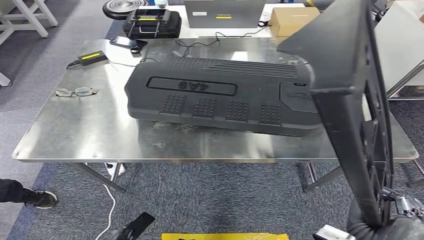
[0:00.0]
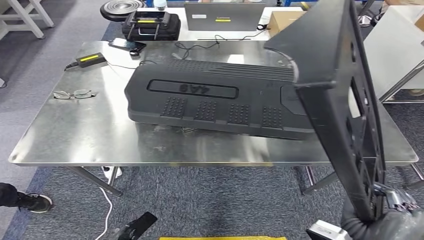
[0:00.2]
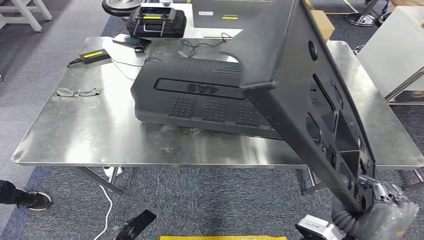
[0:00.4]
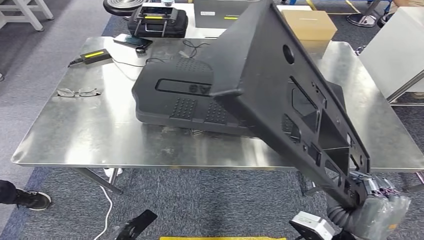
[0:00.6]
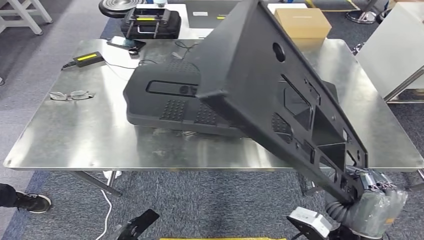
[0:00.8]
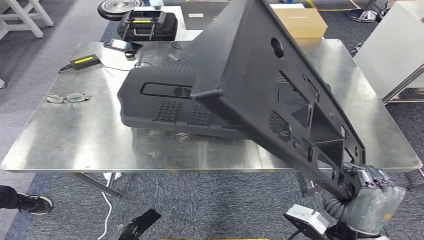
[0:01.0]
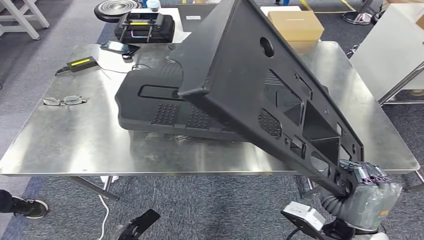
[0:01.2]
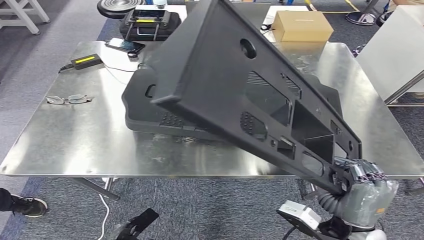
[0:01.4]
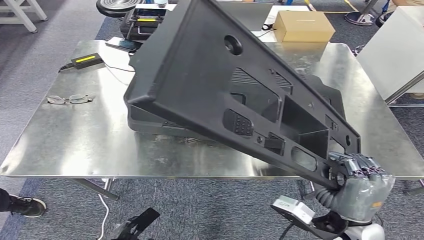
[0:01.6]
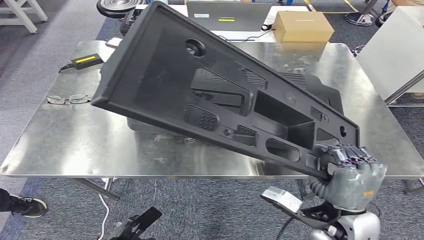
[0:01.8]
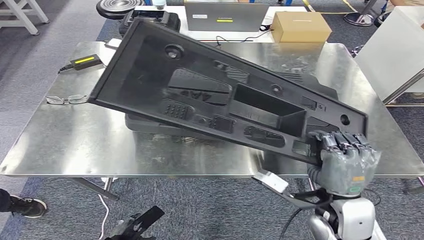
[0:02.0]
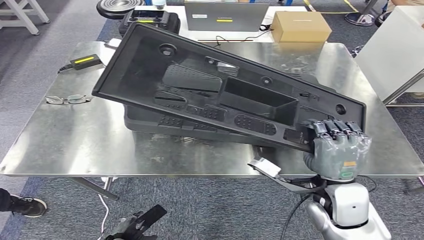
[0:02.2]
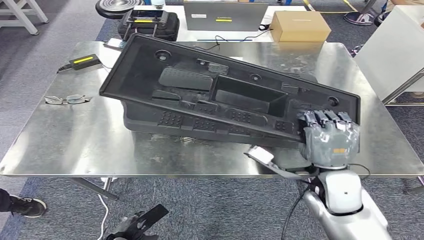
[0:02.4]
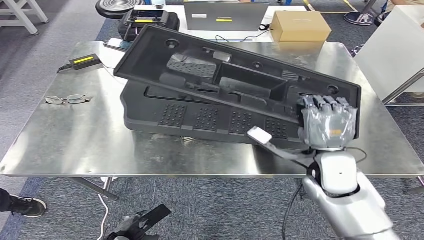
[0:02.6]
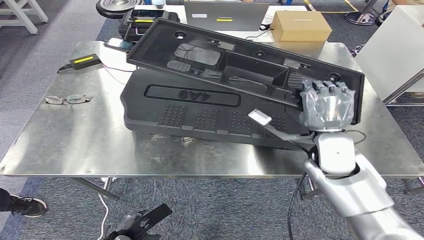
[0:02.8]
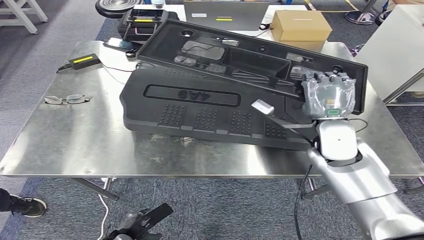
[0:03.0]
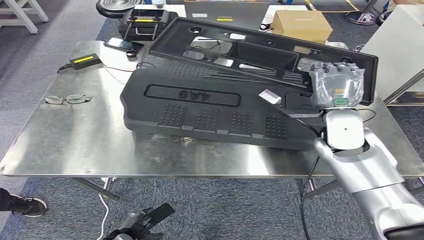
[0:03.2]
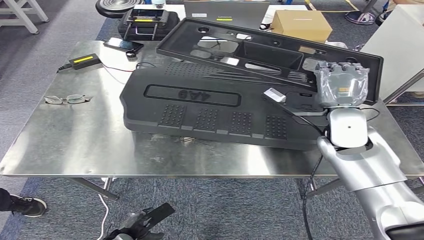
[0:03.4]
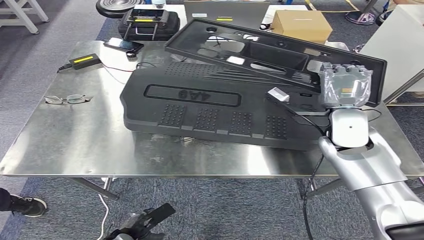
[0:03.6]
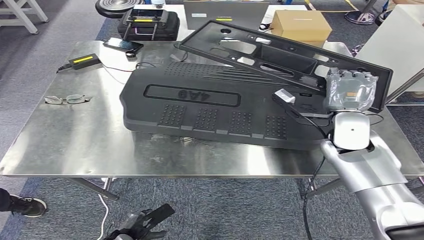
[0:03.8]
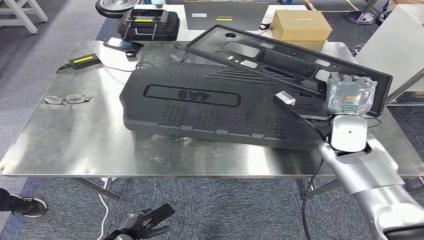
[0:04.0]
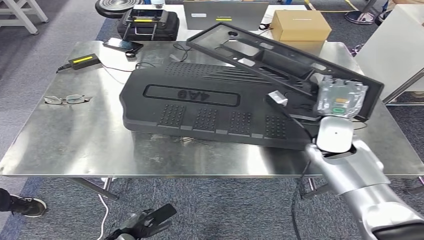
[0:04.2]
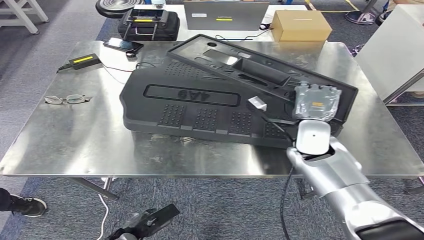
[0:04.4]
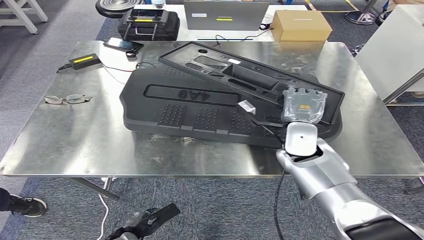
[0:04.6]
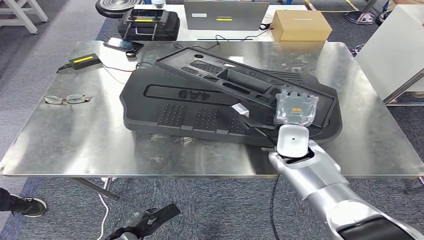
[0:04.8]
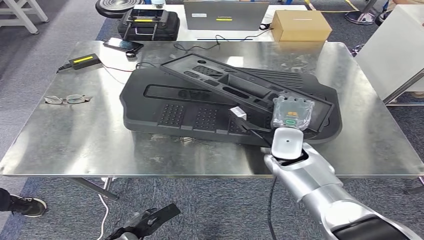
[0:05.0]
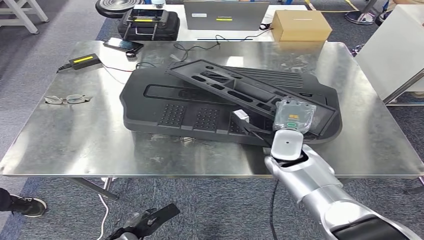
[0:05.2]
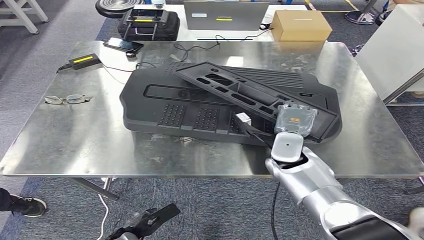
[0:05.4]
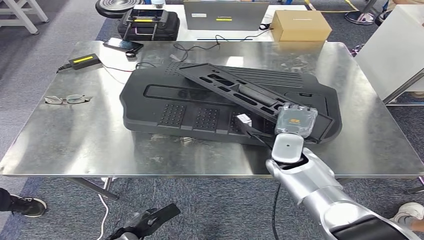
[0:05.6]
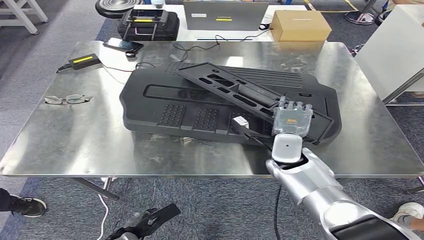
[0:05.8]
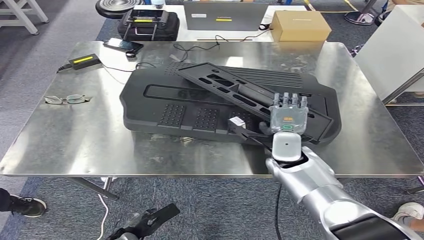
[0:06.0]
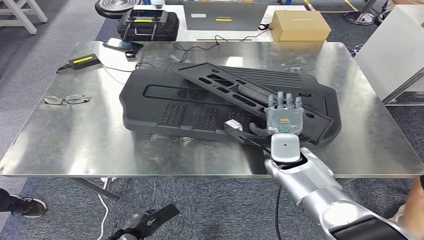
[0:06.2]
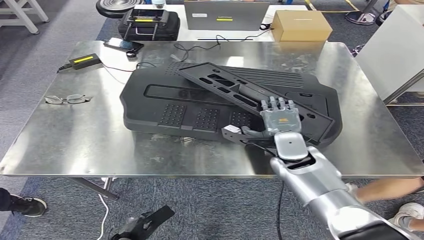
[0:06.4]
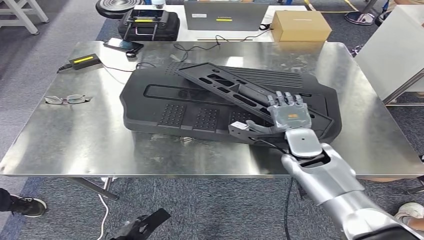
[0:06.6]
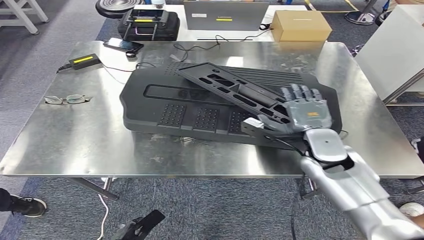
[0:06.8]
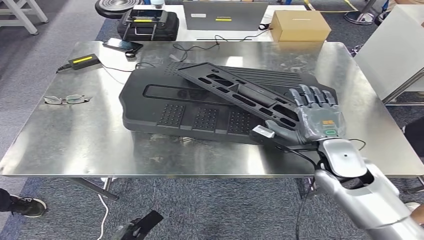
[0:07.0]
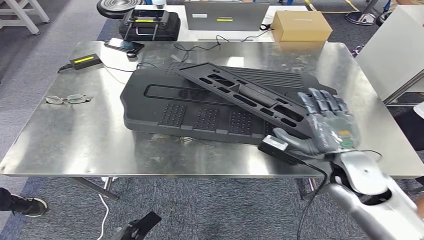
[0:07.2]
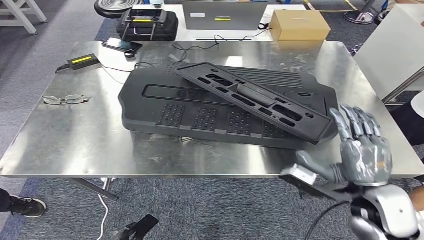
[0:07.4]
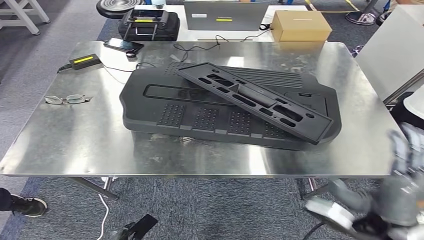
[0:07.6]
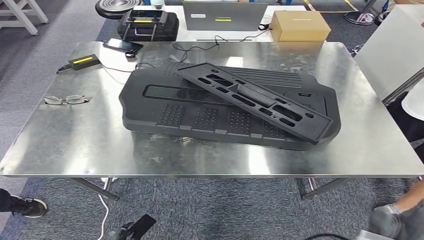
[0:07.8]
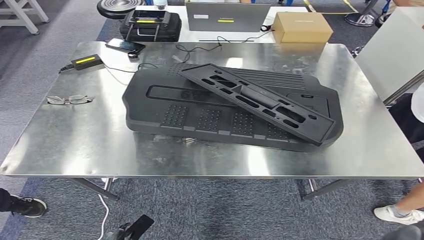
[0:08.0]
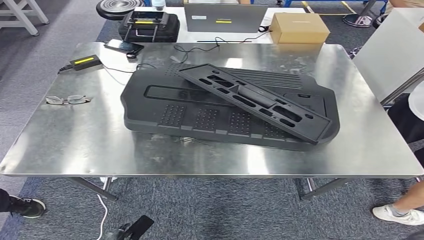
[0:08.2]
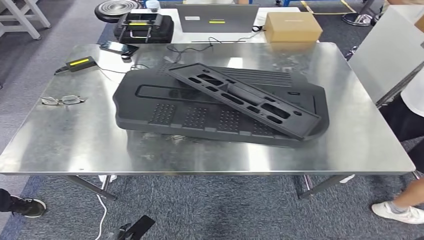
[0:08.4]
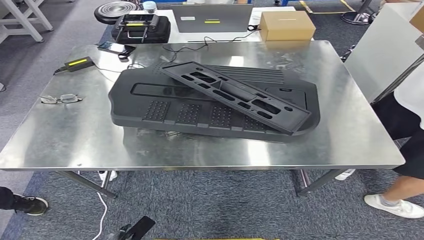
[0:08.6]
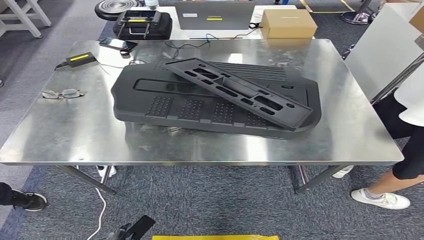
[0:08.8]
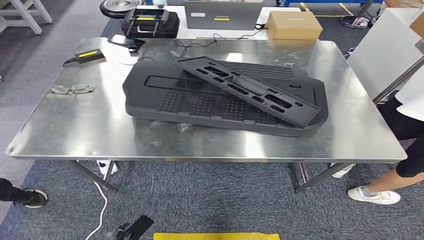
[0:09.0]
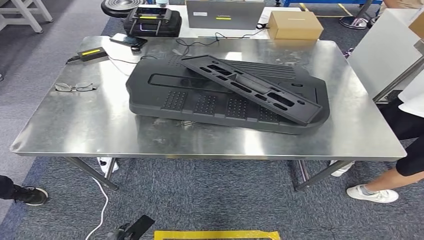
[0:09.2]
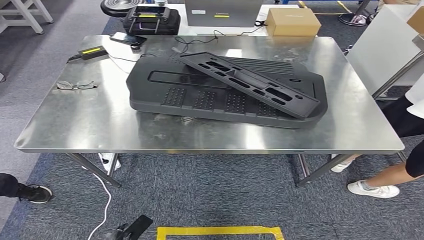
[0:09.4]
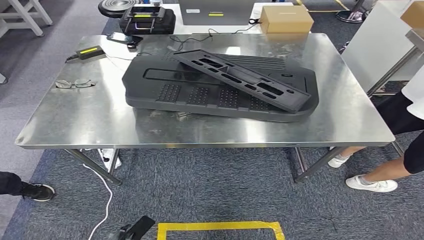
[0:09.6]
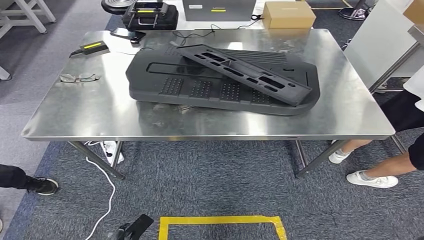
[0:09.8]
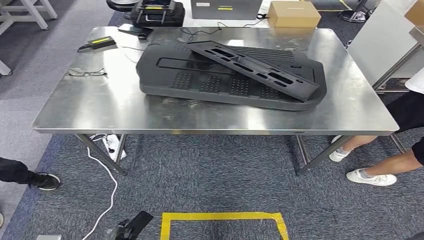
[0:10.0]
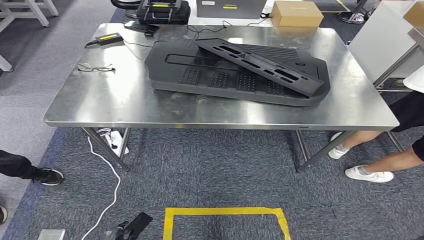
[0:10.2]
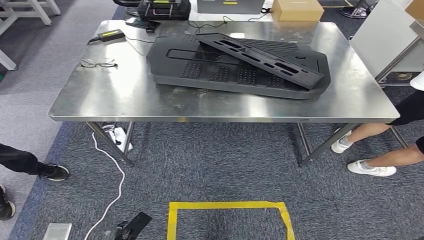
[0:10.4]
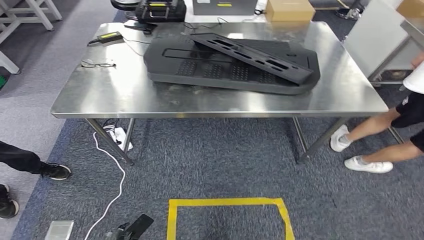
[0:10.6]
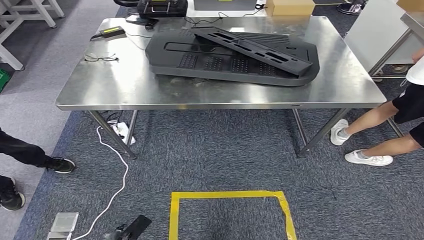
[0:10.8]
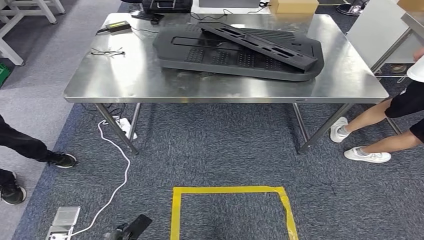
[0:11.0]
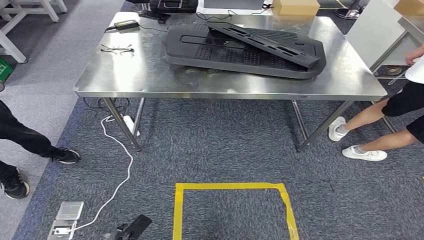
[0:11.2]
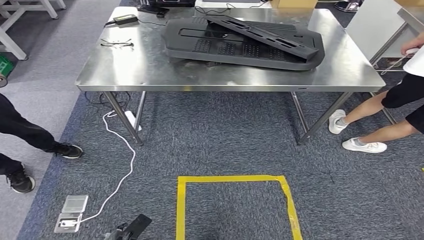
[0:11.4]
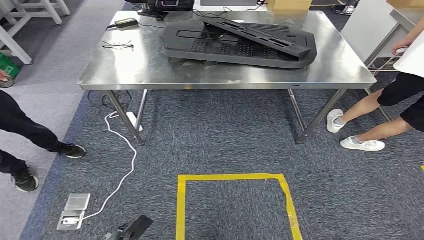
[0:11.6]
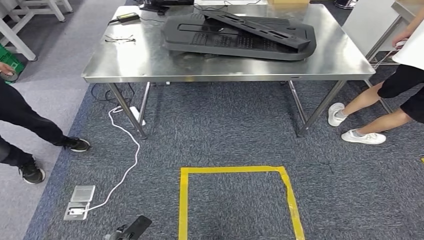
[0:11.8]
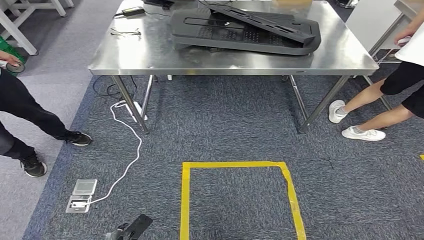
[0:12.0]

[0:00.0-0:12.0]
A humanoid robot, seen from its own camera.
Step, 0:01.4 to 0:07.4: Insert the large material into the corresponding slot on the workbench.
0:06.0 to 0:07.6: The right hand moves backward and to the right, roughly 25 cm; the left hand is displaced backward by about 5 cm.

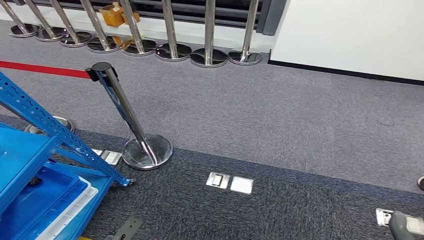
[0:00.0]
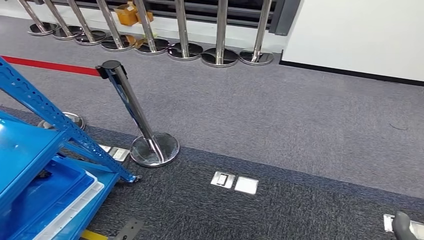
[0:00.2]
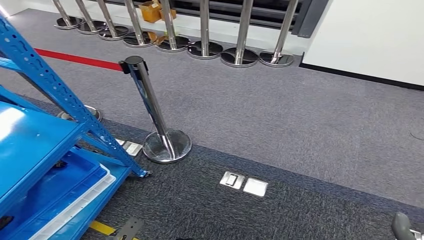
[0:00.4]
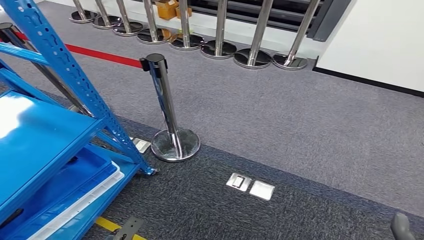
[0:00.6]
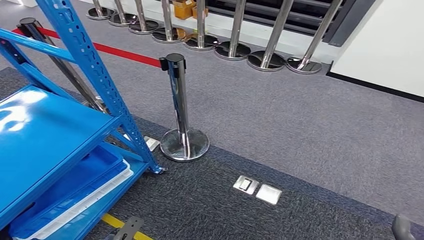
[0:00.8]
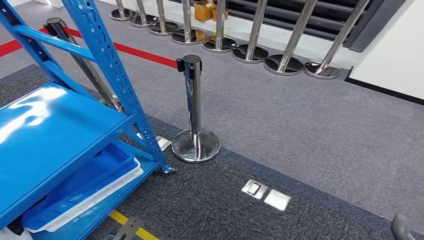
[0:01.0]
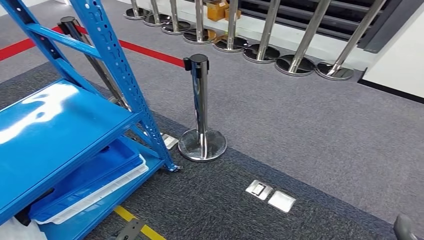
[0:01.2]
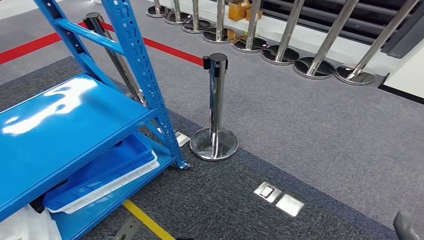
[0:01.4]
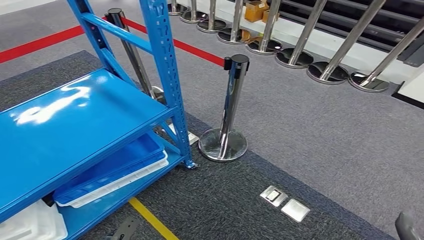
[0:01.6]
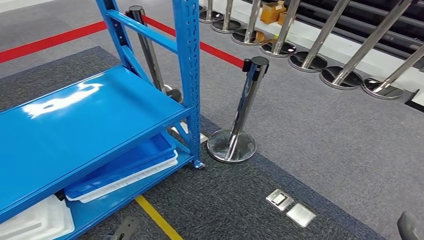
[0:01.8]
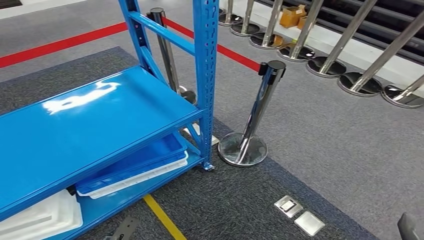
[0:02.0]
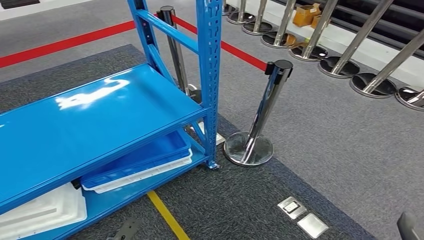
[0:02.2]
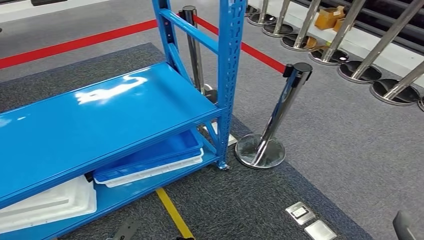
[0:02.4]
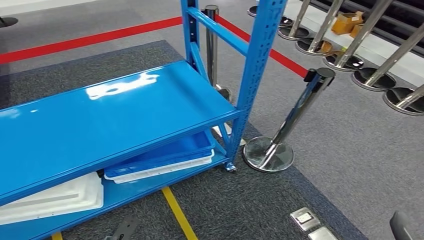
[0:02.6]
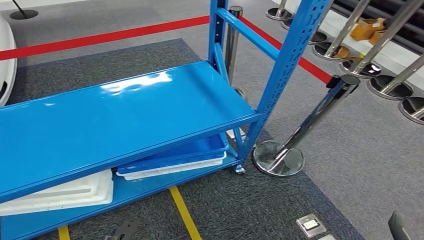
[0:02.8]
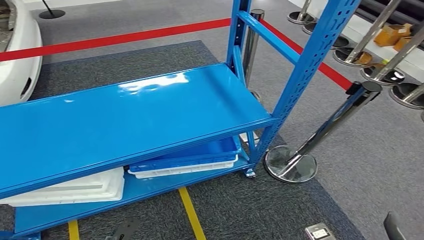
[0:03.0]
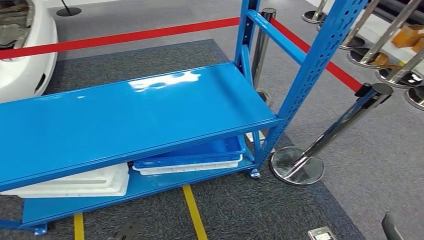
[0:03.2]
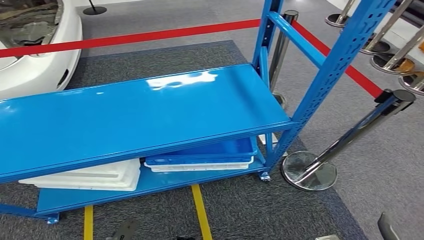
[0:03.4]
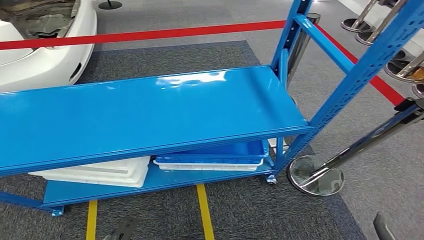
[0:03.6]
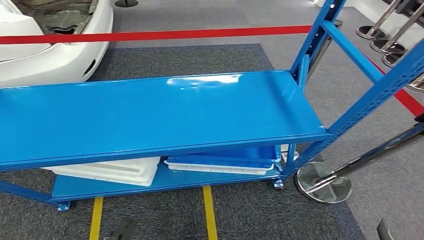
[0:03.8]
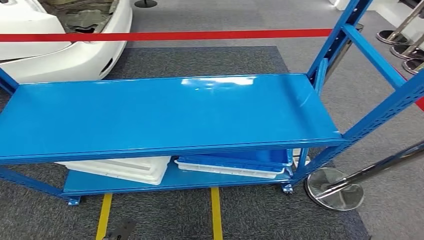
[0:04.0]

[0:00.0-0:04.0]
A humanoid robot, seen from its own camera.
Step, 0:00.0 to 0:04.0: Return to the initial position at the shelf.
